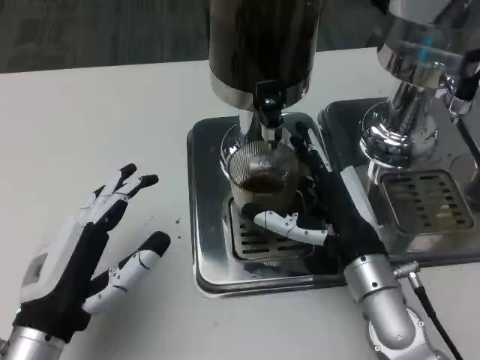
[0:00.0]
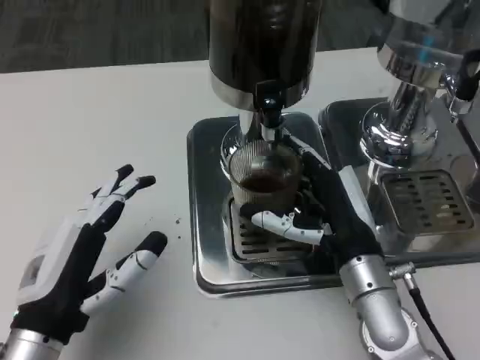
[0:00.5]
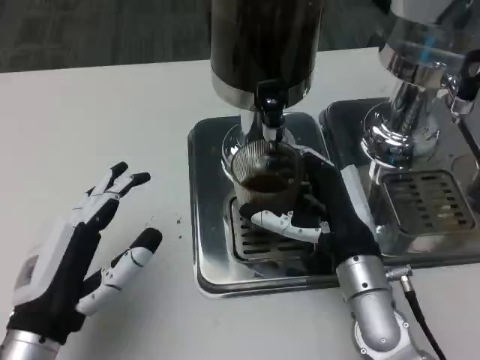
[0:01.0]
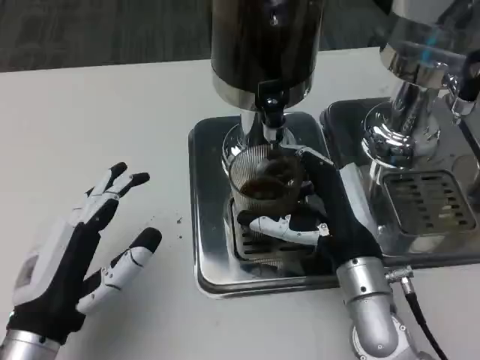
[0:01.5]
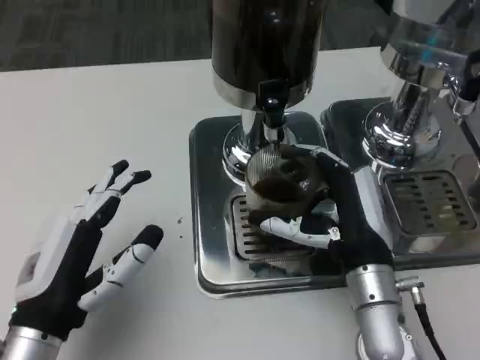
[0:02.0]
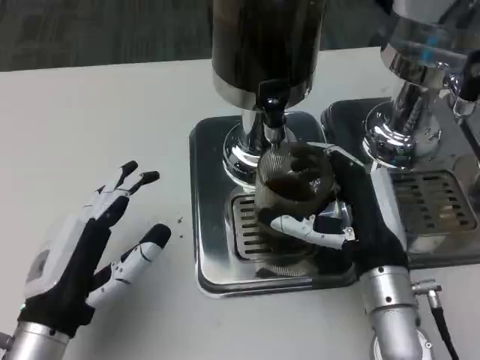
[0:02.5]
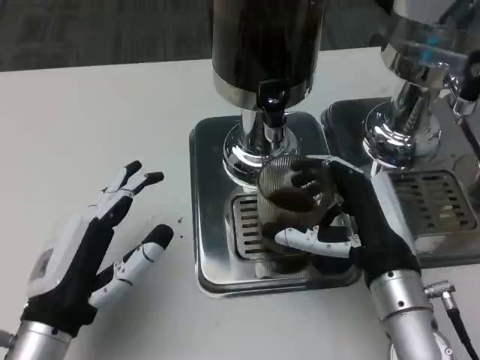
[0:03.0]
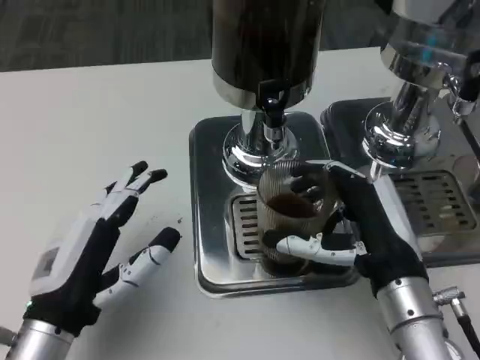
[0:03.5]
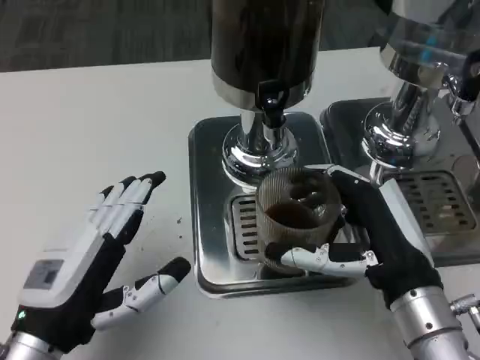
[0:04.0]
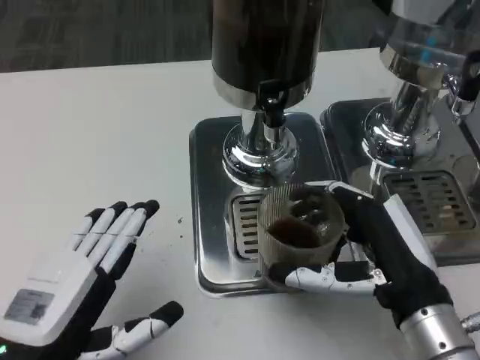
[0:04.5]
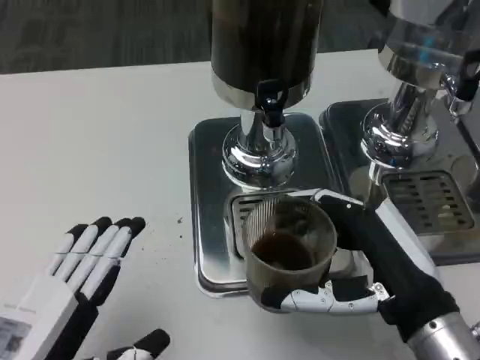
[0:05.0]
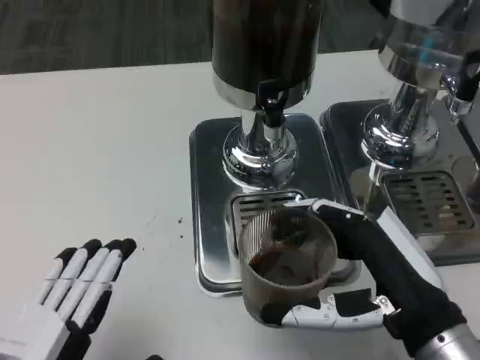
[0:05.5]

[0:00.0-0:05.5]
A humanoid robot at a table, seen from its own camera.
Task of the whole recording: Grasp the cup under the faucet to collect the drink, then remove the cup.
0:00.0 to 0:02.0: The hands move only a little.
0:02.0 to 0:03.5: The right hand ends up some 5 cm from where it was.
0:03.5 to 0:05.5: The left hand travels backward by approximately 10 cm. The right hand shifts some 5 cm backward.

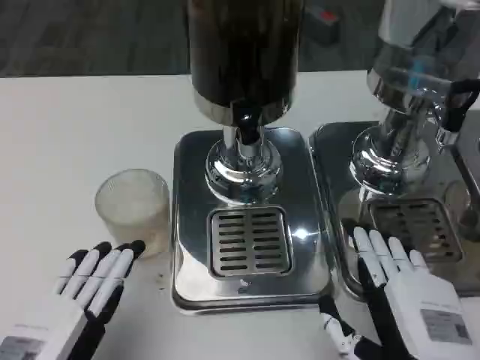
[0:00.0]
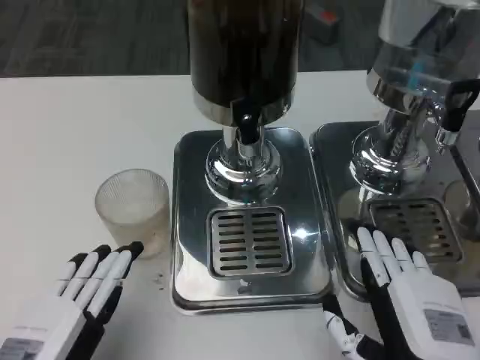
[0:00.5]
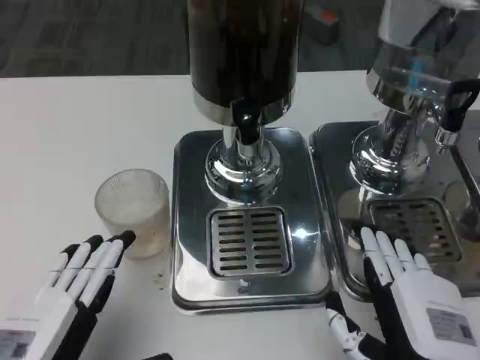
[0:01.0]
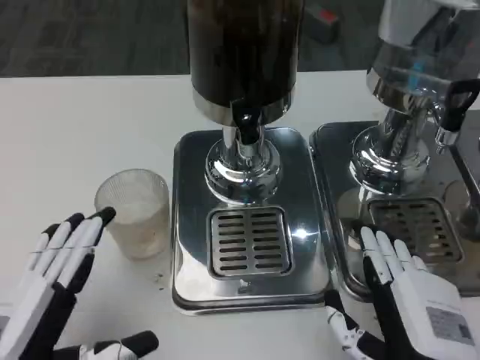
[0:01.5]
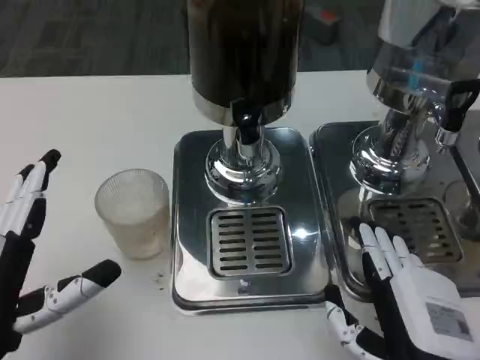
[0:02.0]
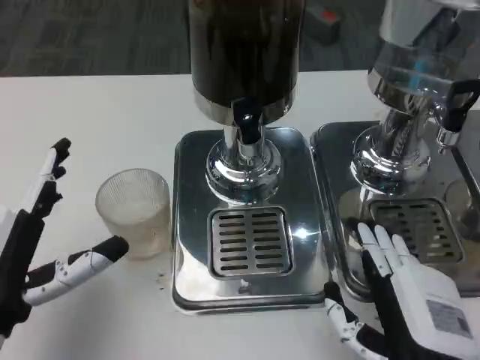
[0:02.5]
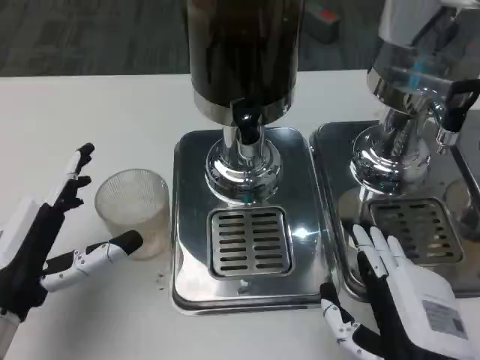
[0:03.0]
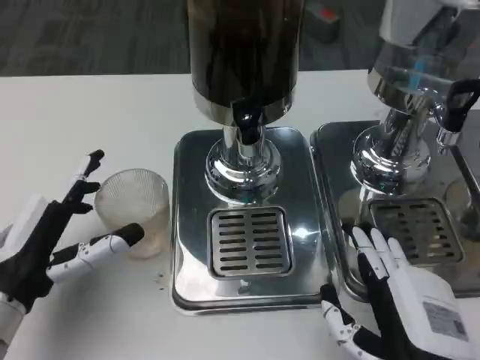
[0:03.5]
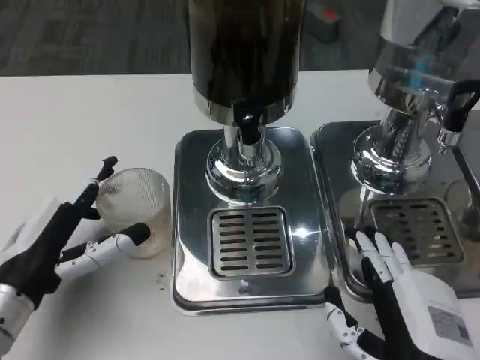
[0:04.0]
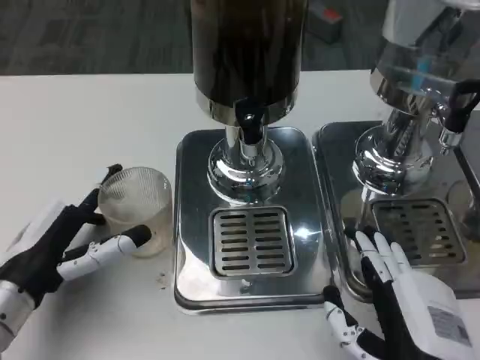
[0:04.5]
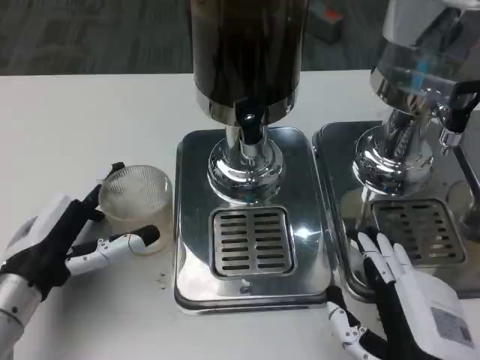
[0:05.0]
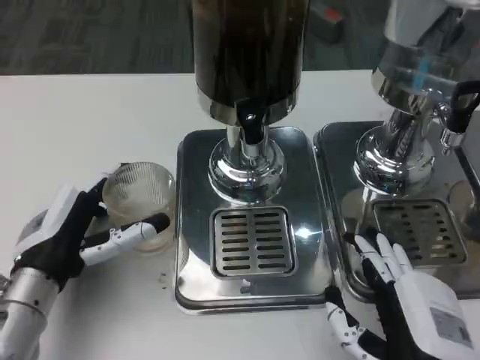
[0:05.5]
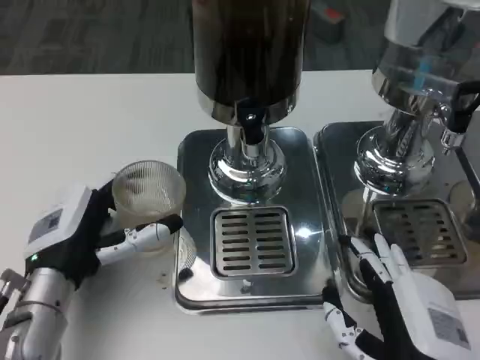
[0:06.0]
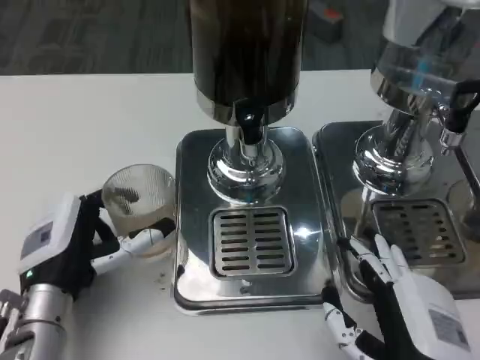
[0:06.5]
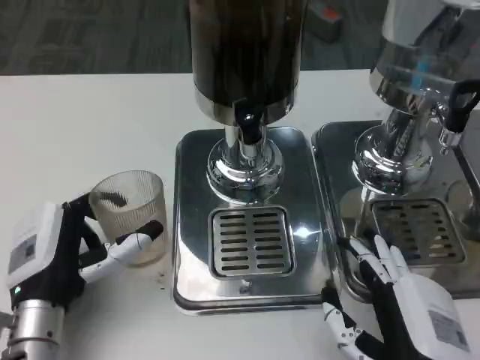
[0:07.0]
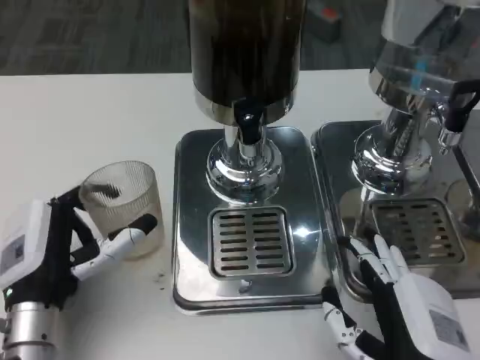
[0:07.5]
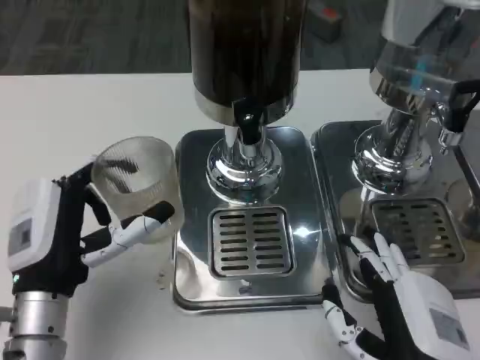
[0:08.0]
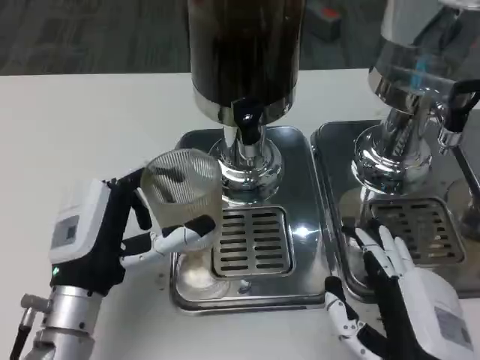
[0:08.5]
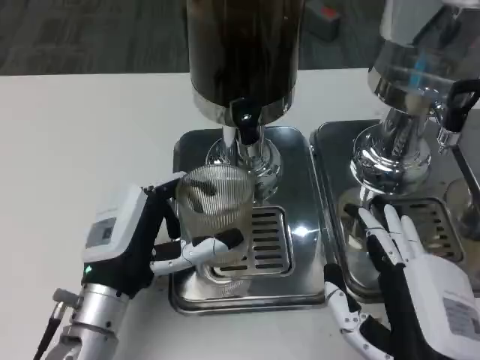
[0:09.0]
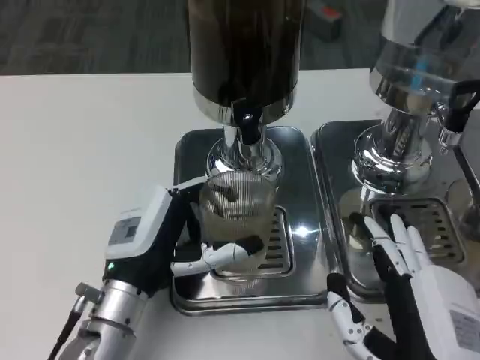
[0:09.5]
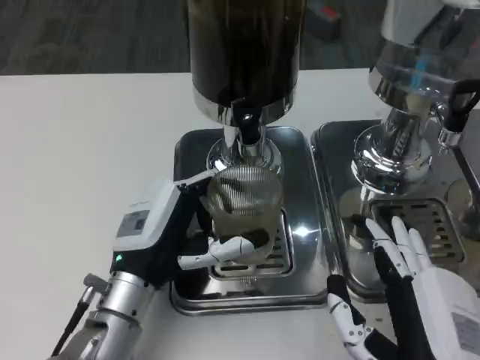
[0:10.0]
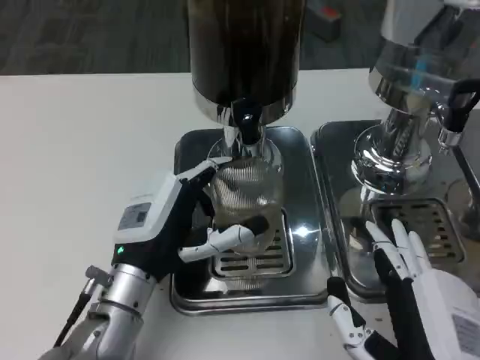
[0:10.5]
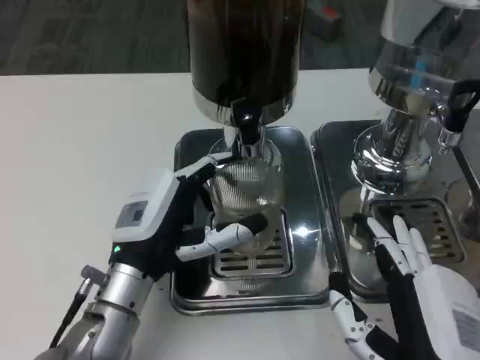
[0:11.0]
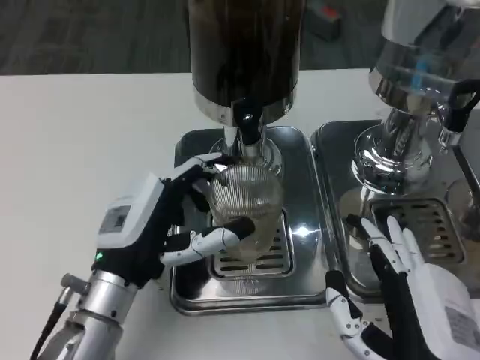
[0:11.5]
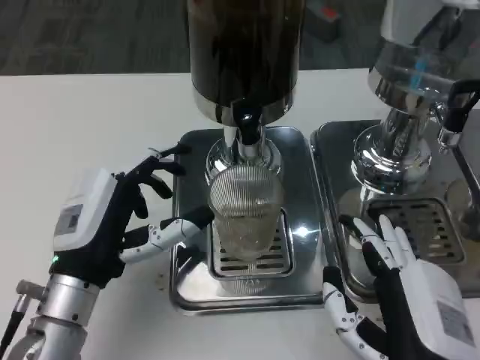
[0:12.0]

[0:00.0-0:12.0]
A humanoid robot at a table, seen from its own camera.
Task of the whole recording: Grasp the cup under the faucet to collect the drink, then remove the cup.
0:00.0 to 0:02.0: The left hand changes place by about 5 cm.
0:02.0 to 0:04.0: The left hand travels forward by about 10 cm.
0:04.0 to 0:06.0: The left hand shifts by some 5 cm.
0:08.0 to 0:10.0: The left hand shifts approximately 5 cm to the right.
0:10.0 to 0:12.0: The left hand shifts by some 5 cm.

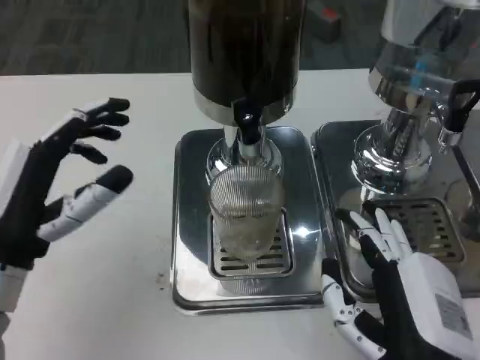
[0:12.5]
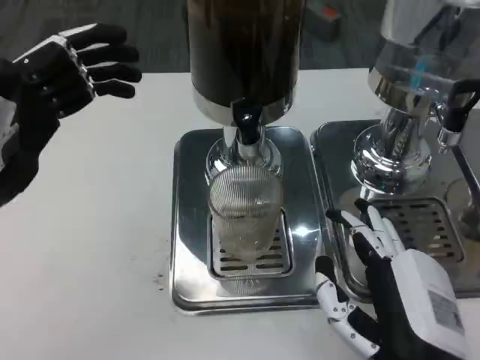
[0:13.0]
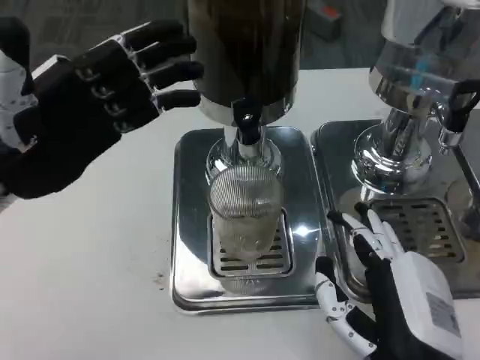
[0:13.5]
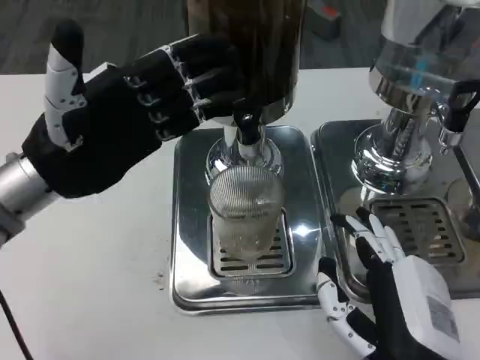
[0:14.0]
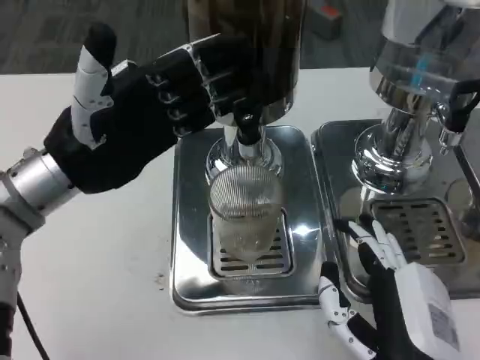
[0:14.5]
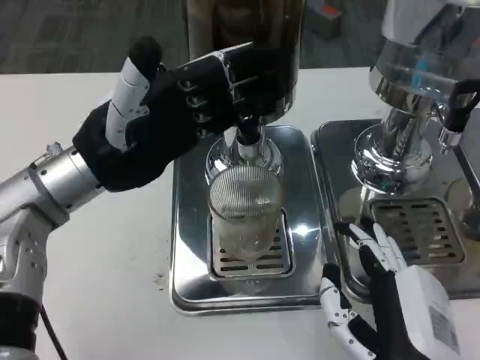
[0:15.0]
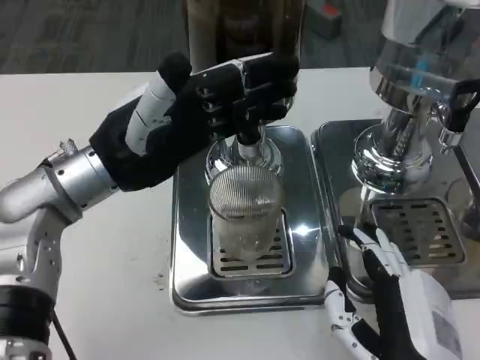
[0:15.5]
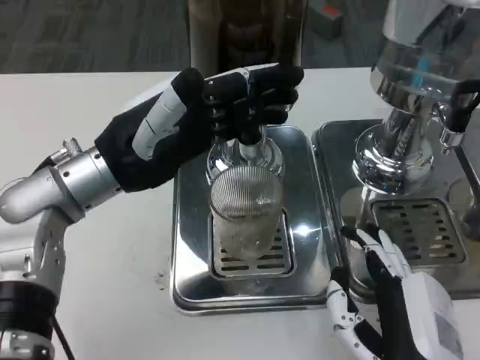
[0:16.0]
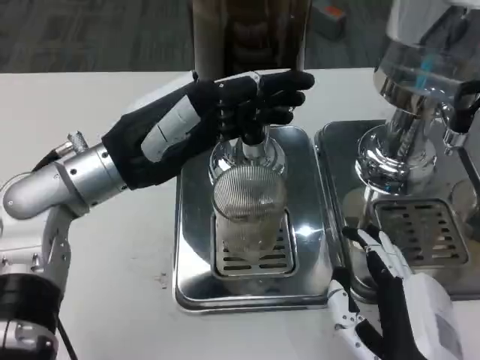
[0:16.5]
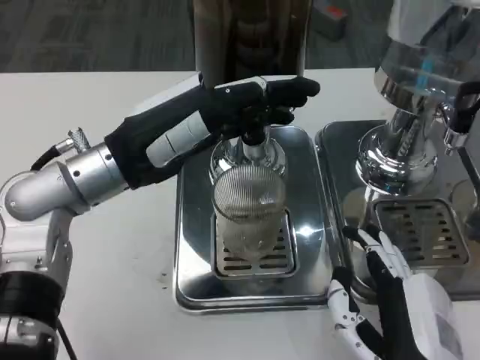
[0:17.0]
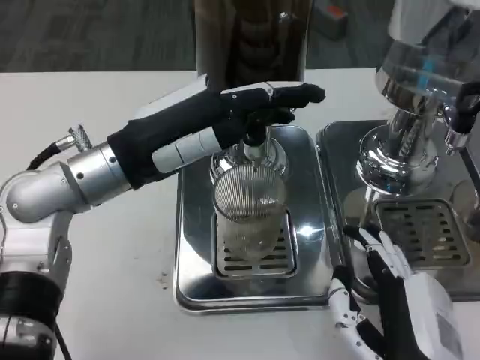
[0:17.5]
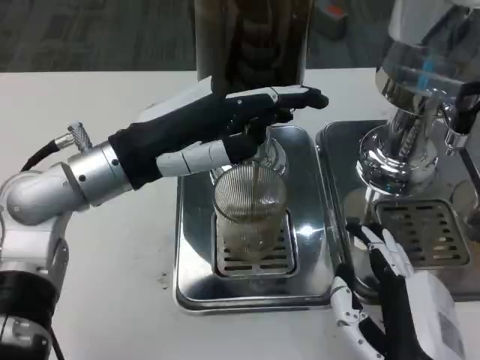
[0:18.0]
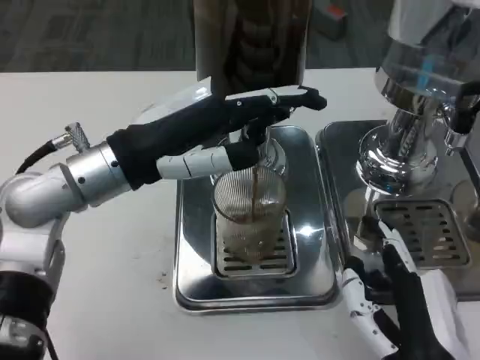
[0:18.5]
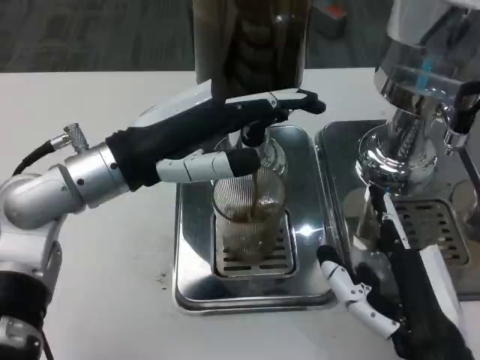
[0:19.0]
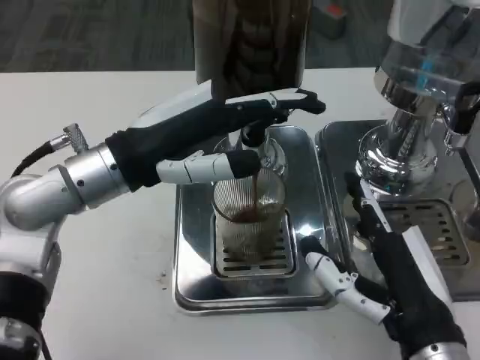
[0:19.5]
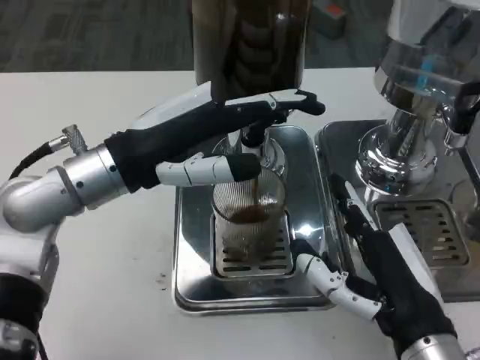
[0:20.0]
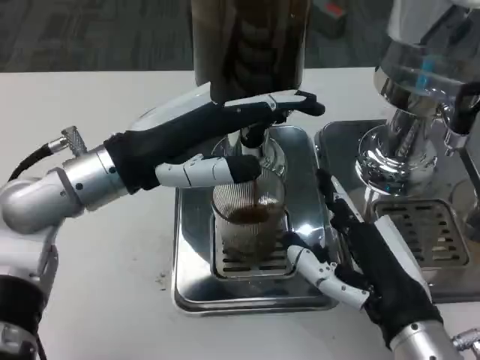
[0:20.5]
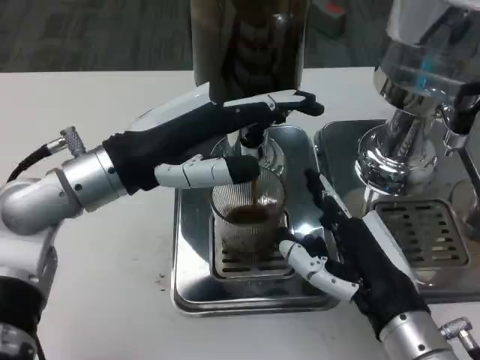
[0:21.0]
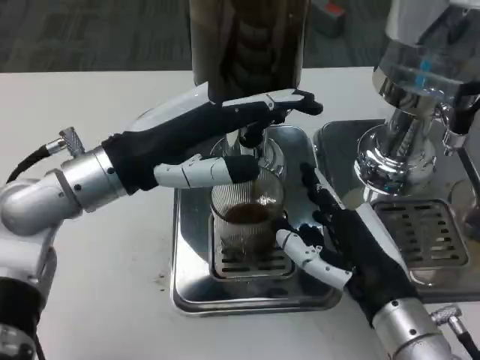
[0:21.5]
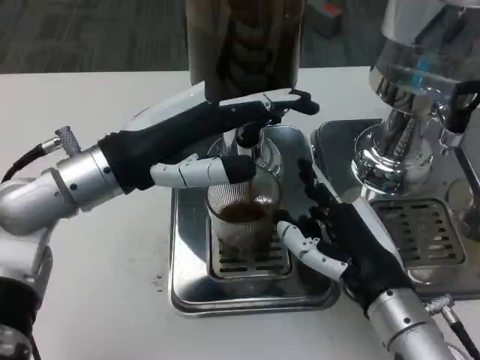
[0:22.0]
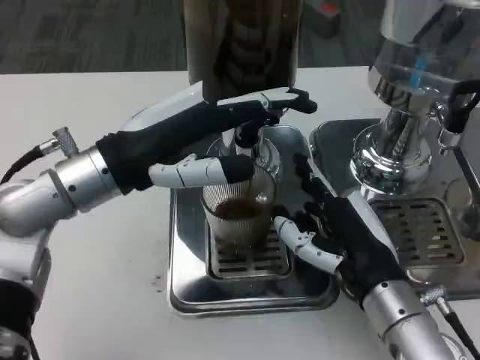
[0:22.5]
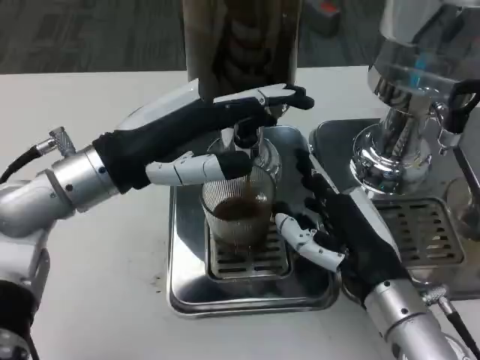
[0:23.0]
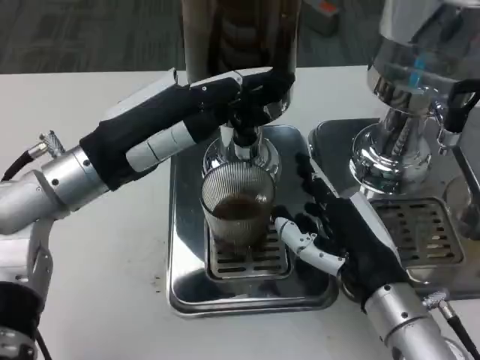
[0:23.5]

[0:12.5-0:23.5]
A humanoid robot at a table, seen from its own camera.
Task of the whole recording: Grasp the cup under the faucet to collect the drink, then remove the cup.
0:12.5 to 0:14.5: The left hand goes some 10 cm forward and upward.
0:18.0 to 0:20.0: The right hand moves roughly 5 cm.
0:20.0 to 0:21.5: The hands stay close to where they were, moving slightly.
